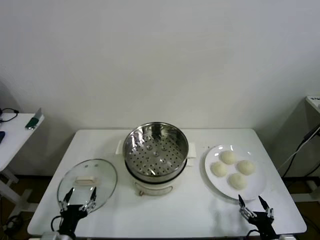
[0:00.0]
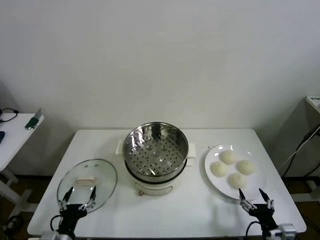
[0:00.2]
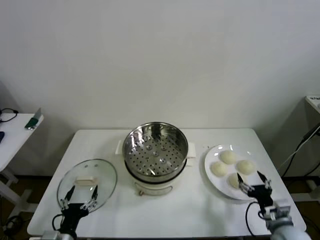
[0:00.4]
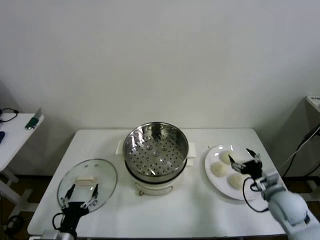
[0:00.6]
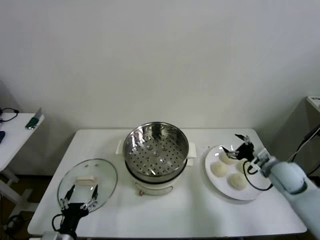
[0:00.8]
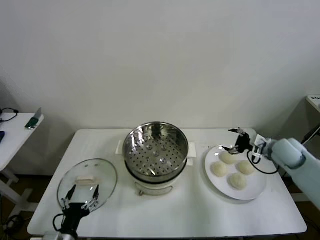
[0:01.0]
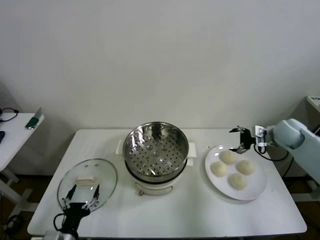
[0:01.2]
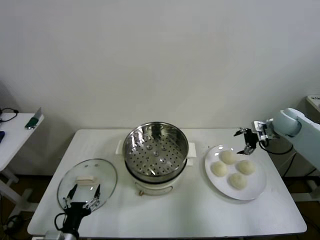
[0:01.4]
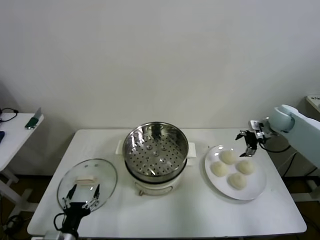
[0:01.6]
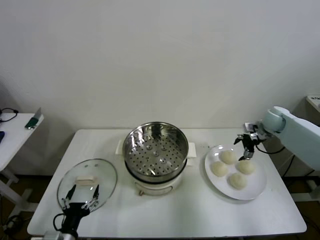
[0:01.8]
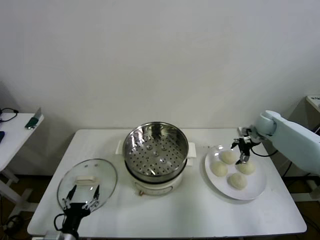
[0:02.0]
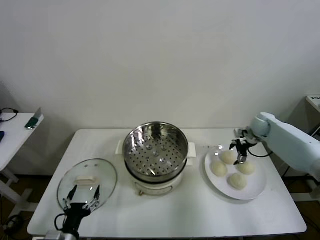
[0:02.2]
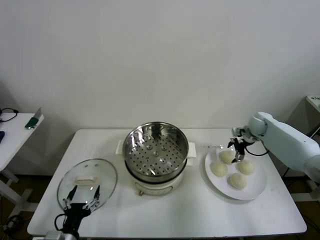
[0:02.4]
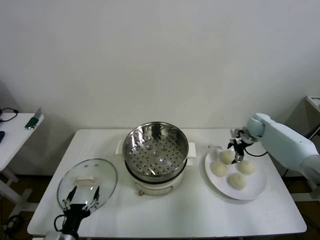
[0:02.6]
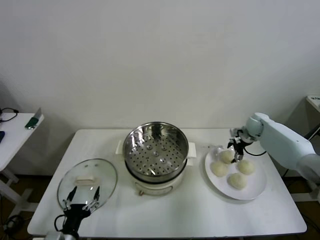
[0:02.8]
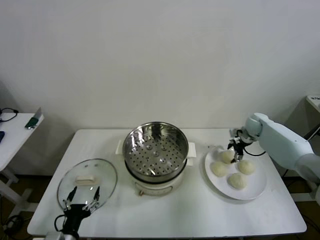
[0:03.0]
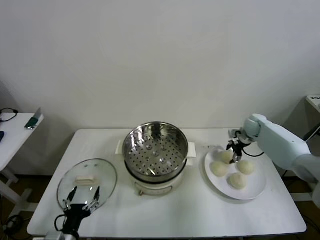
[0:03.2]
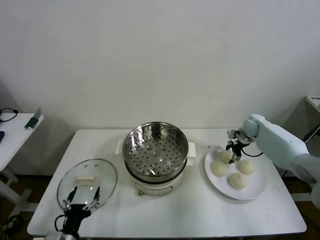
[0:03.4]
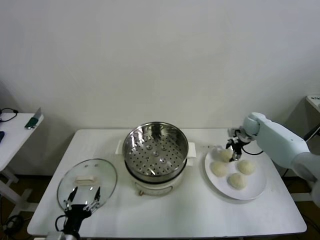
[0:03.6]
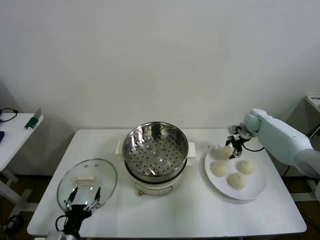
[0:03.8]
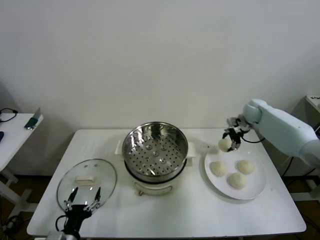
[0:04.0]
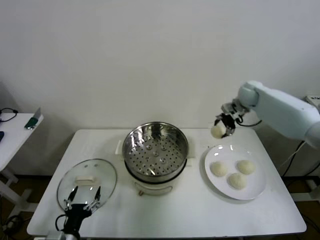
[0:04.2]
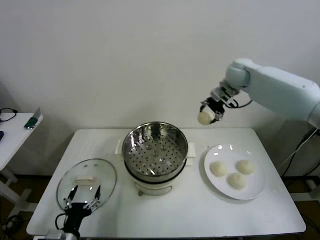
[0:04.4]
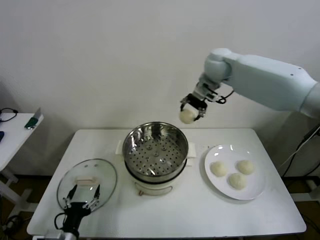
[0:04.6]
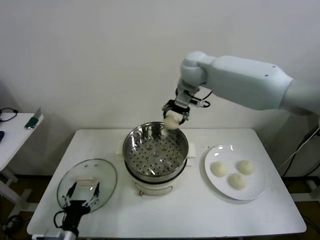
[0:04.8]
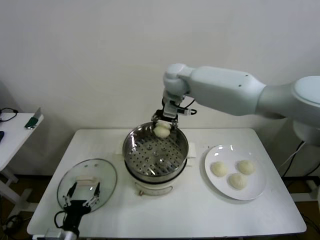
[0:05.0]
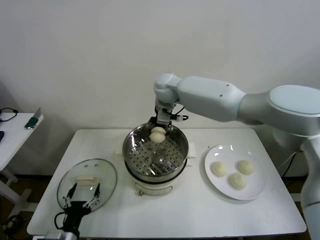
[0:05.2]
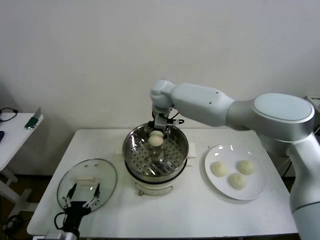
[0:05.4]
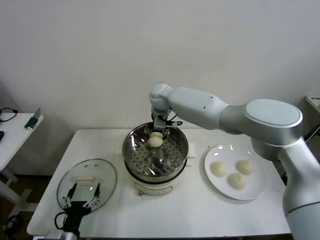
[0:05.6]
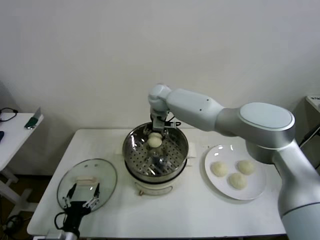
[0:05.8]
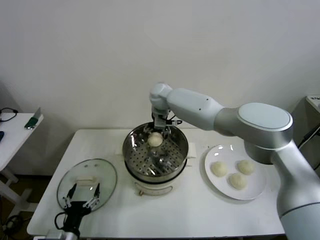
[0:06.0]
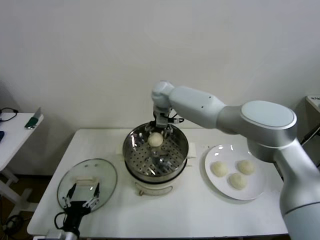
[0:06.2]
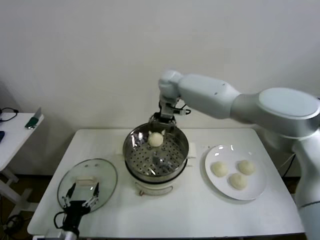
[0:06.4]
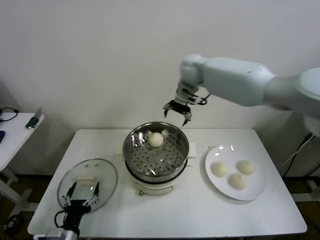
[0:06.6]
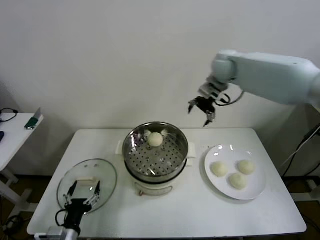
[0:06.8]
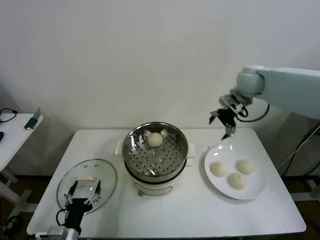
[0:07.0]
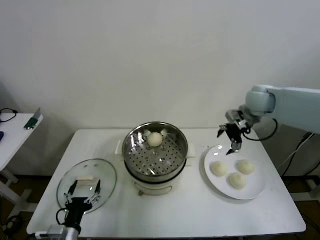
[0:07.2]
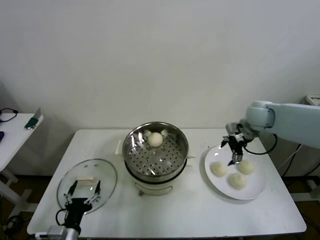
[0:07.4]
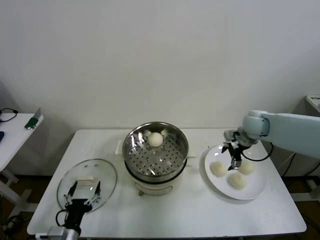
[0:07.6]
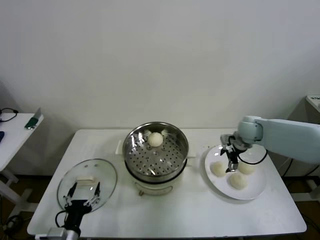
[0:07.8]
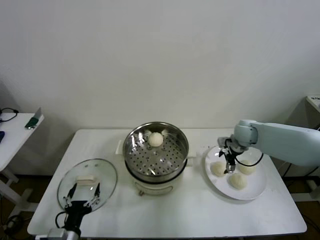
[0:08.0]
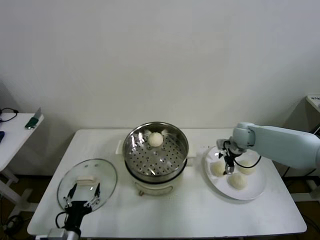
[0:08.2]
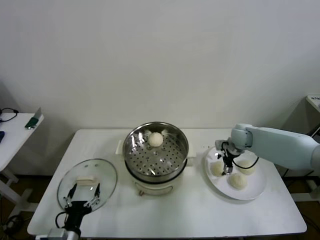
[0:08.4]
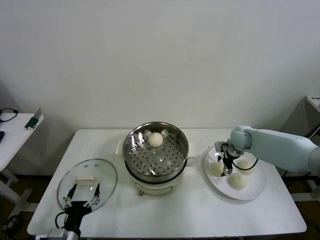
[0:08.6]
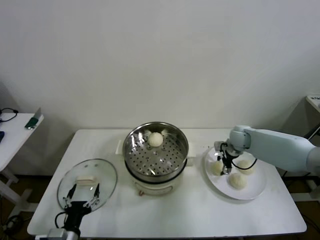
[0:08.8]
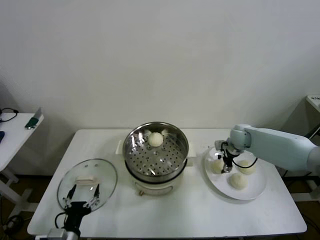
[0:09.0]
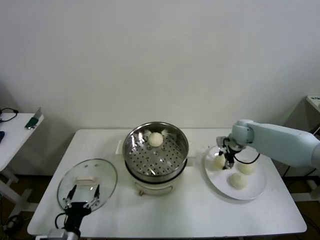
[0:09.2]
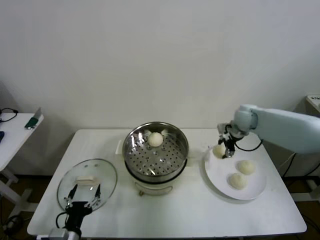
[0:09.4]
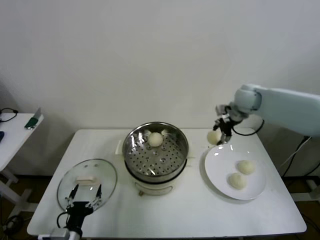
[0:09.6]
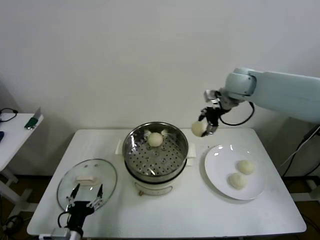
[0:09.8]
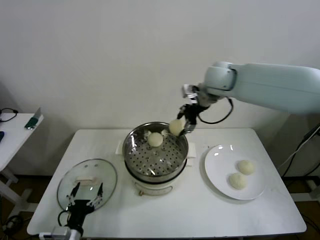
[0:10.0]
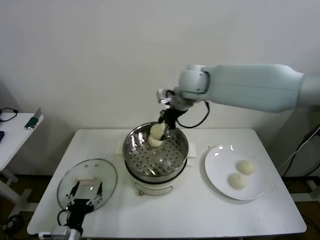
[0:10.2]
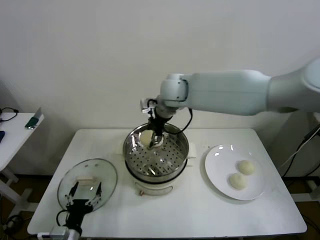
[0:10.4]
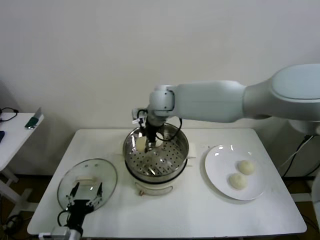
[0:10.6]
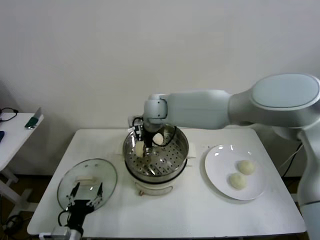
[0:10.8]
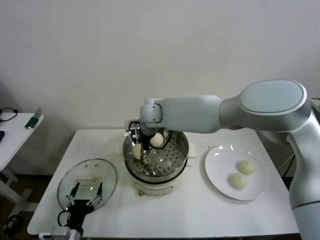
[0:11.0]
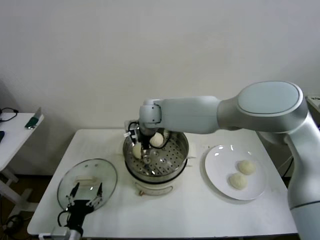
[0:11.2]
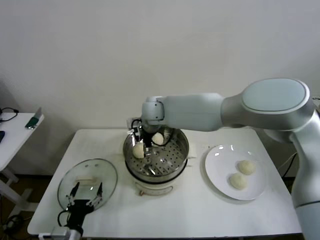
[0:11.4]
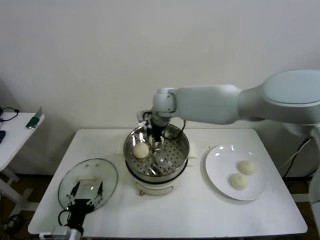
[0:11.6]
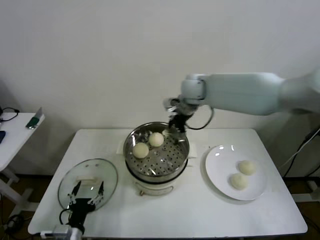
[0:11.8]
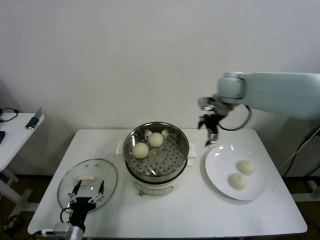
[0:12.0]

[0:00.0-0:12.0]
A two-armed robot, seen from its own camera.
Step, 0:00.0 to 0:03.4: Grasp the baozi in the plate with right gripper.
Step, 0:03.6 to 0:06.2: Place the baozi on the steamer with right gripper.
Step, 0:06.6 to 0:08.8: Grasp the baozi in the plate with right gripper.
Step, 0:09.0 to 0:11.4: Place the baozi on the steamer with right gripper.
0:01.6 to 0:03.0: The right gripper heads downward, covering roughly 10 cm.
0:03.0 to 0:04.4: The right gripper moves upward and to the left, approximately 30 cm.
0:04.4 to 0:06.0: The right gripper shifts approximately 25 cm to the left and downward, and opens.
0:06.0 to 0:07.6: The right gripper travels to the right by roughly 35 cm.
0:07.6 to 0:09.0: The right gripper travels downward by roughly 5 cm, and closes up.
0:09.0 to 0:10.4: The right gripper travels to the left and upward by approximately 35 cm.
0:10.4 to 0:12.0: The right gripper shifts about 25 cm to the right, and opens its fingers.

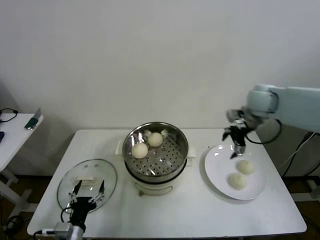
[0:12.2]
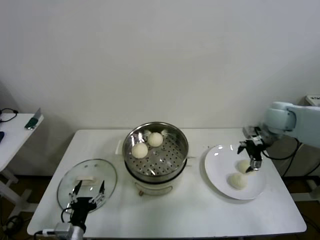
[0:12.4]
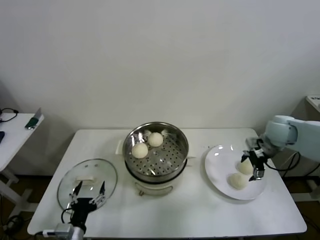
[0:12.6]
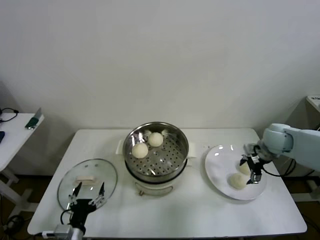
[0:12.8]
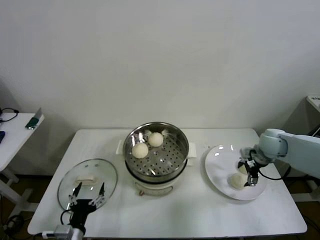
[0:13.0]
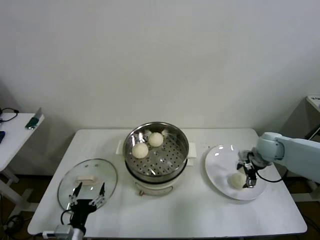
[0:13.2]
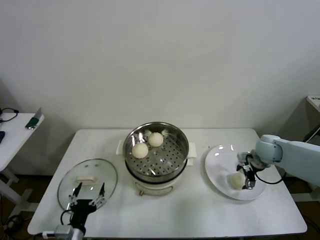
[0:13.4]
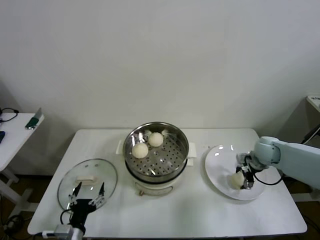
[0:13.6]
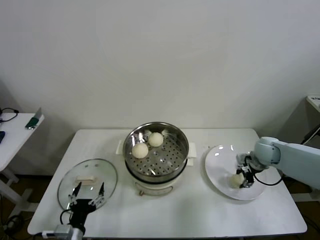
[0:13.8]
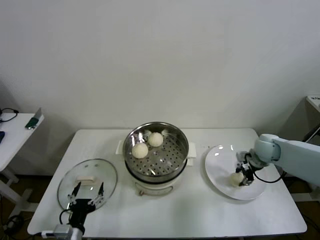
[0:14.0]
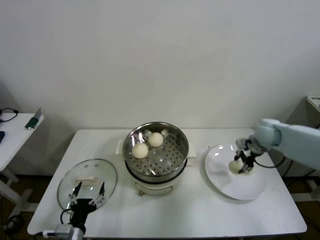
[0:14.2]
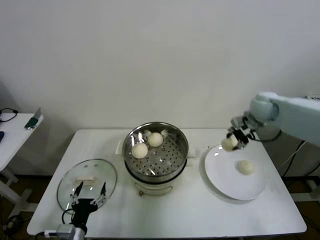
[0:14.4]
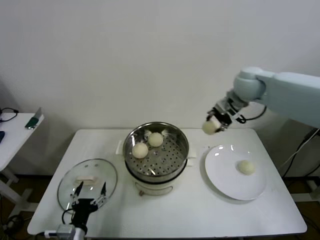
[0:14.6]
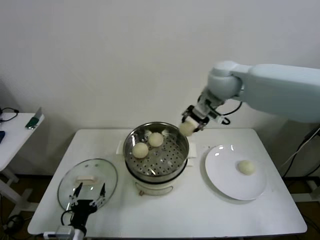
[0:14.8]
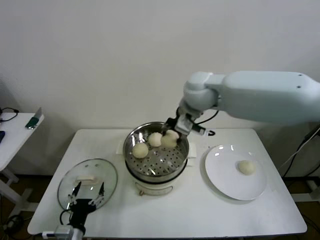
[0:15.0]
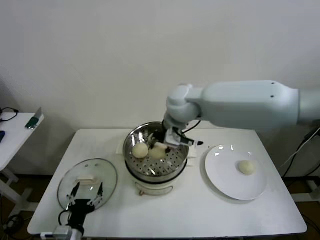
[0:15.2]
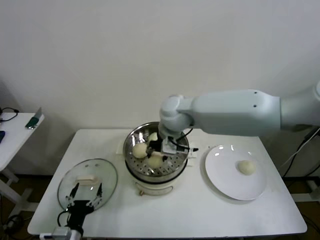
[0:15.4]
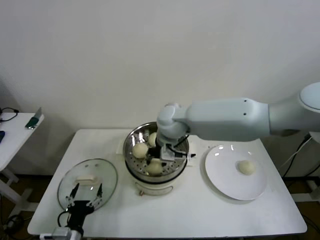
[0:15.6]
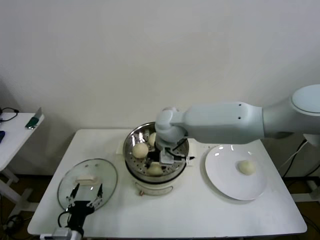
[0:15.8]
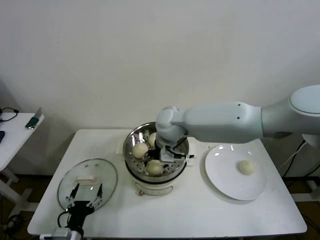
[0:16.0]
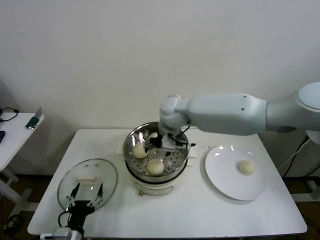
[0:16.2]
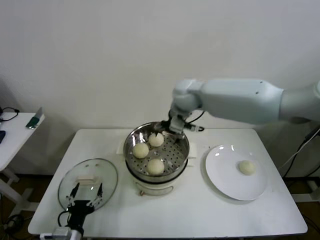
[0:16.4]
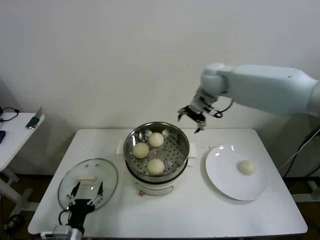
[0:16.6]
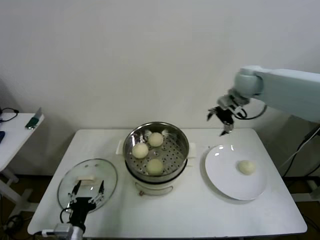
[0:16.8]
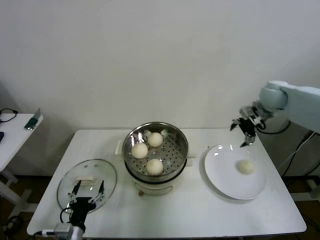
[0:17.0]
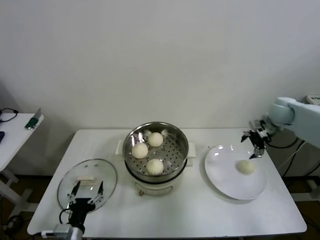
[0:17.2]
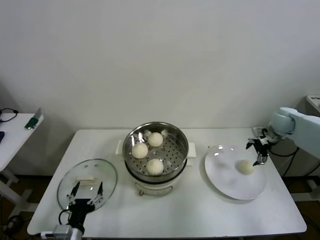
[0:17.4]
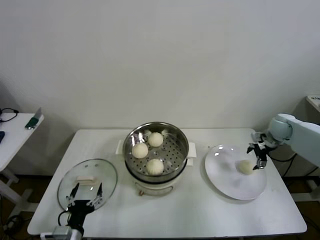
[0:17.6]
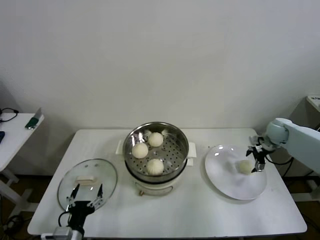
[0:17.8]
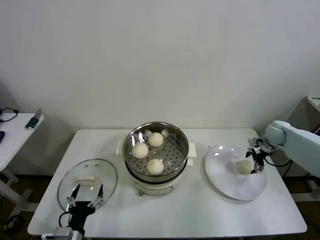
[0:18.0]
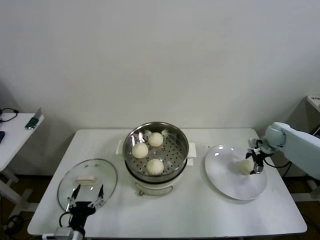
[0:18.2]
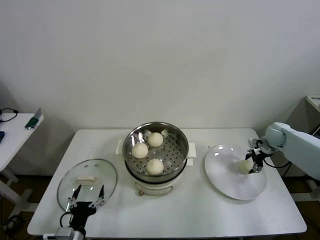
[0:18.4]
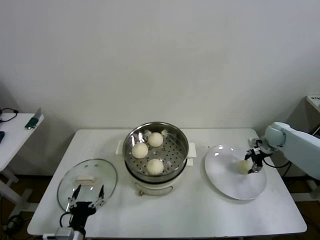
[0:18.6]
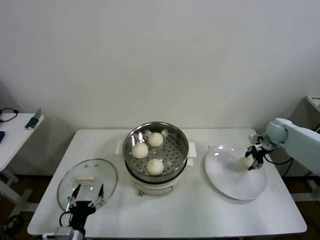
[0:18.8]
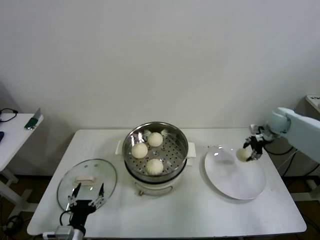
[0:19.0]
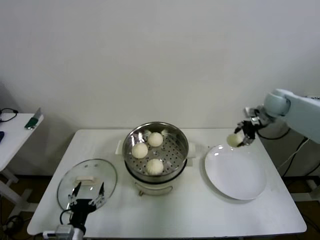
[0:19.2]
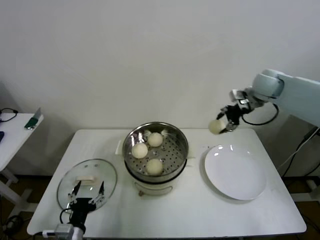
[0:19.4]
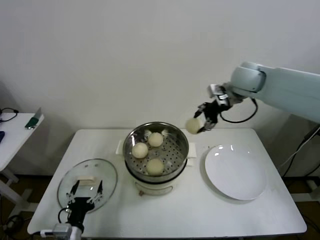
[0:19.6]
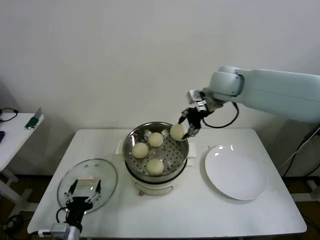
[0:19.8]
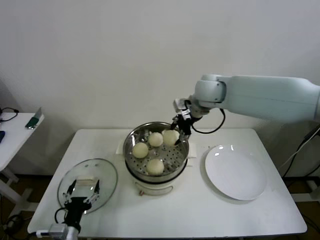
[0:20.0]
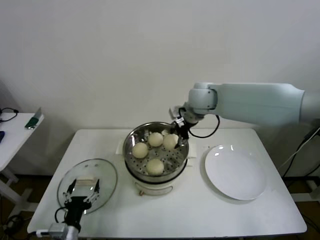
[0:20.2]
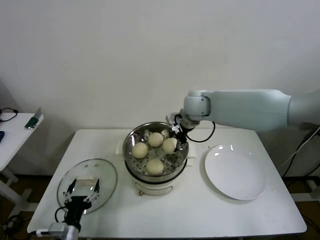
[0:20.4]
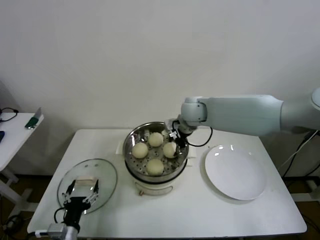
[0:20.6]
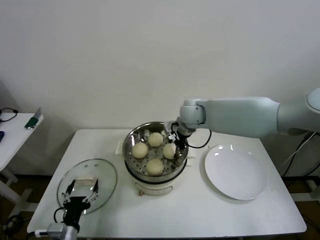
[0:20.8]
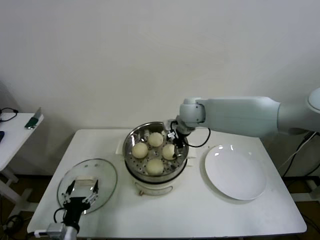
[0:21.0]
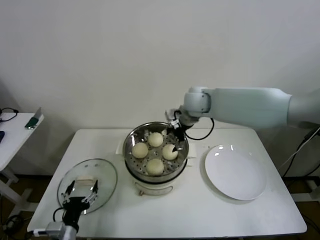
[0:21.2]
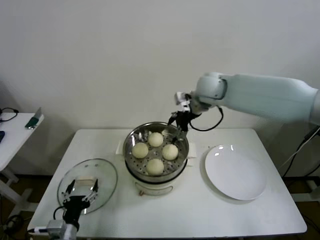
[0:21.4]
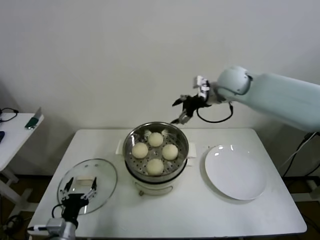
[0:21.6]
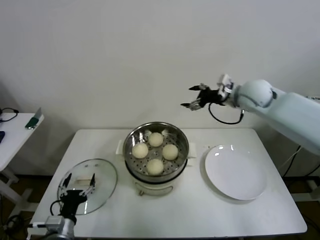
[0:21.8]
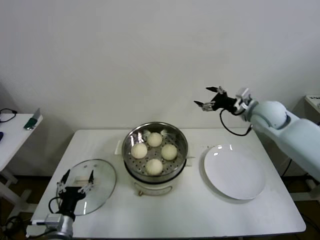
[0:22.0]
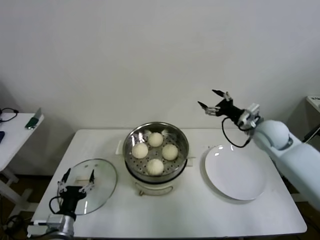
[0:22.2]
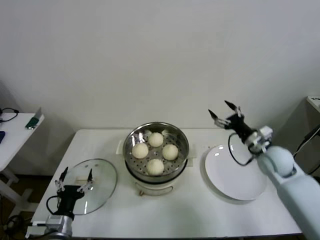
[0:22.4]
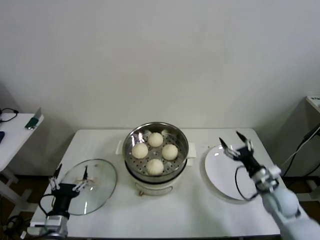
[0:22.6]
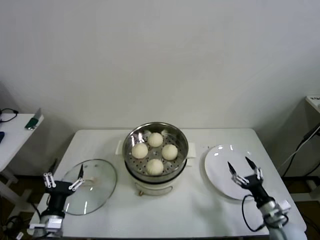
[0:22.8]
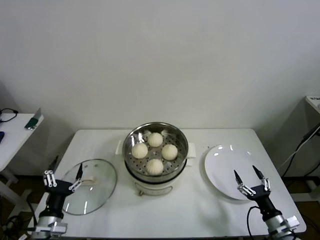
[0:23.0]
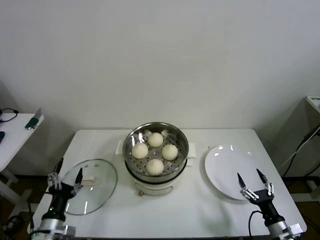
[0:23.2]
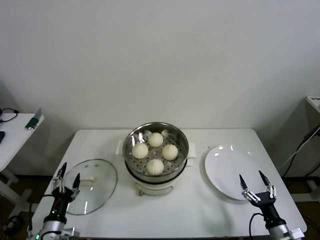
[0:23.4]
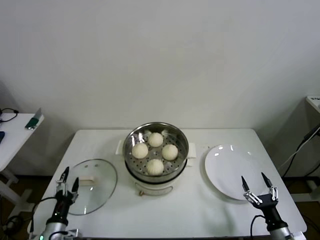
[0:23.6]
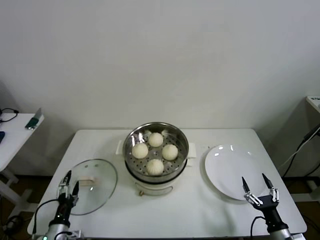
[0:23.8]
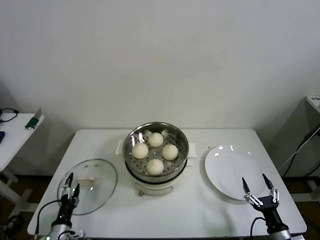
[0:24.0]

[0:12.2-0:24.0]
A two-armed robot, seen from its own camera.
Step, 0:12.2 to 0:13.8: Grasp the baozi in the plate with right gripper.
Step, 0:14.0 to 0:16.0: Place the baozi on the steamer with right gripper.
Step, 0:16.4 to 0:18.6: Grasp the baozi in the plate with right gripper.
Step, 0:18.8 to 0:21.2: Place the baozi on the steamer with right gripper.
0:12.2 to 0:13.6: The right gripper shifts approximately 20 cm downward.
0:13.6 to 0:15.2: The right gripper shifts about 40 cm to the left and upward, and closes its fingers.
0:15.2 to 0:16.6: The right gripper moves to the right and forward, approximately 20 cm, and opens.
0:16.6 to 0:18.2: The right gripper is displaced to the right and downward by some 35 cm.
0:18.2 to 0:19.6: The right gripper shifts roughly 35 cm upward and to the left, and closes.
0:19.6 to 0:21.0: The right gripper moves to the left and downward, approximately 20 cm, and opens up.
0:21.0 to 0:22.6: The right gripper goes about 40 cm to the right, downward and backward.
0:22.6 to 0:24.0: The left gripper goes about 10 cm downward, while the right gripper goes about 20 cm backward and downward.
